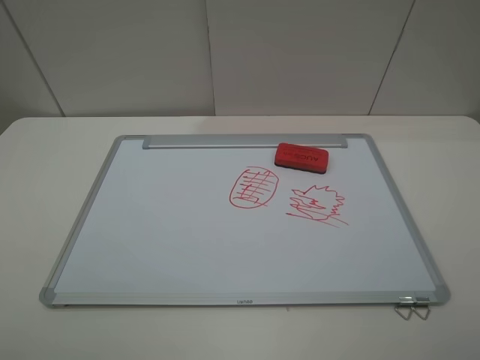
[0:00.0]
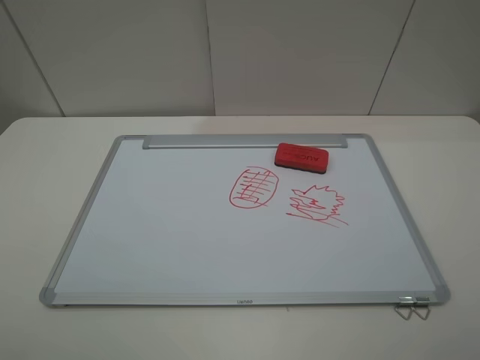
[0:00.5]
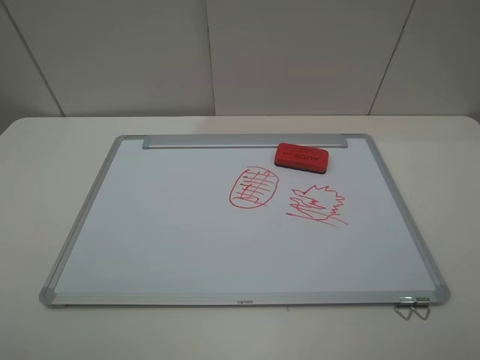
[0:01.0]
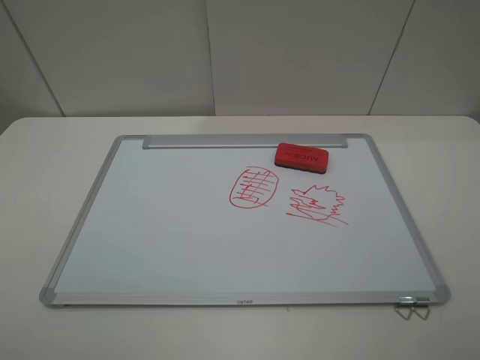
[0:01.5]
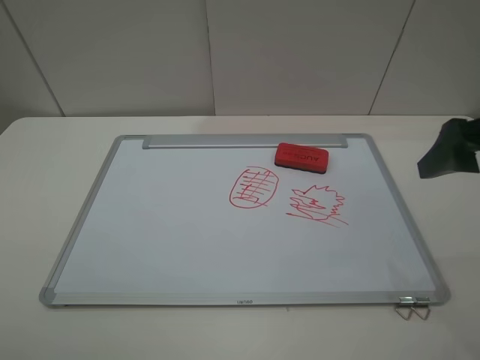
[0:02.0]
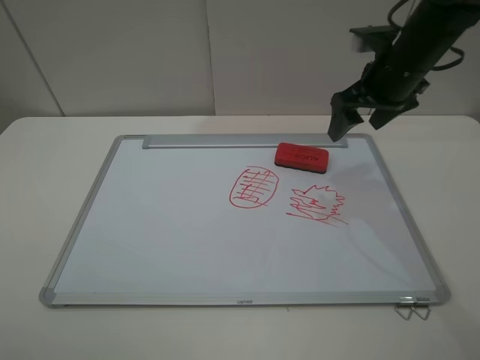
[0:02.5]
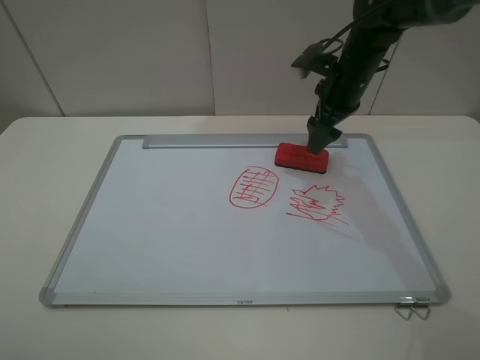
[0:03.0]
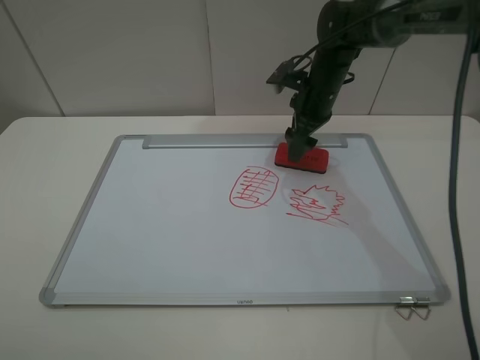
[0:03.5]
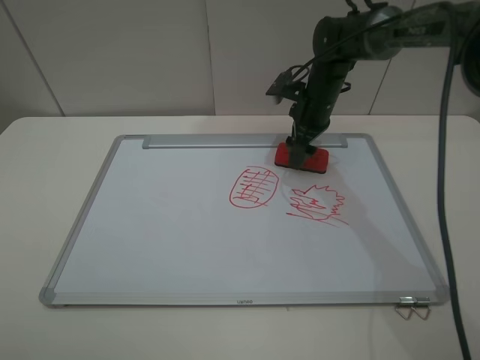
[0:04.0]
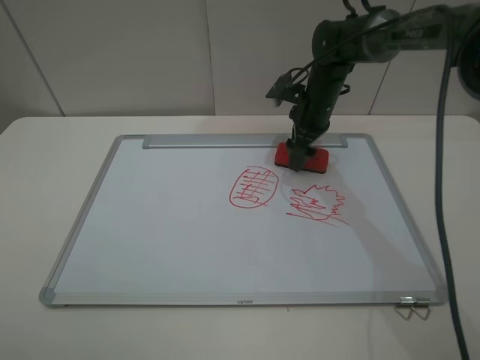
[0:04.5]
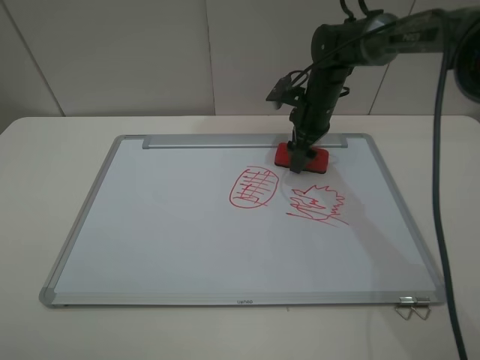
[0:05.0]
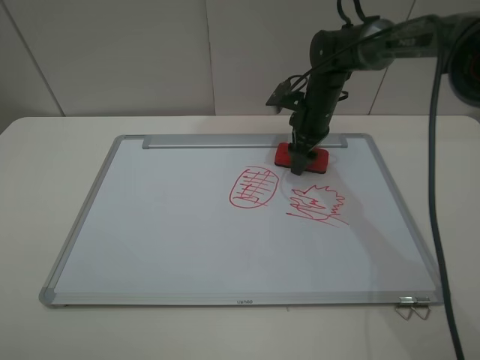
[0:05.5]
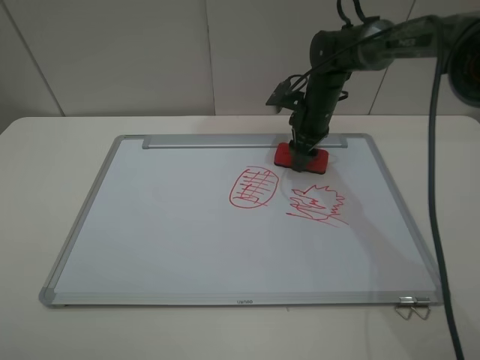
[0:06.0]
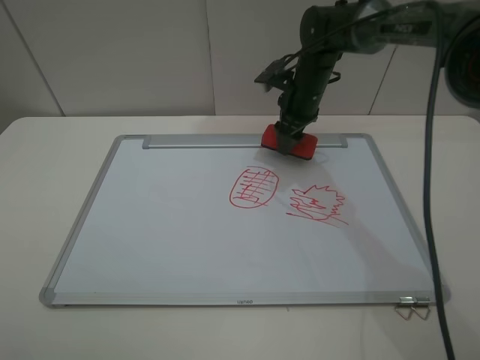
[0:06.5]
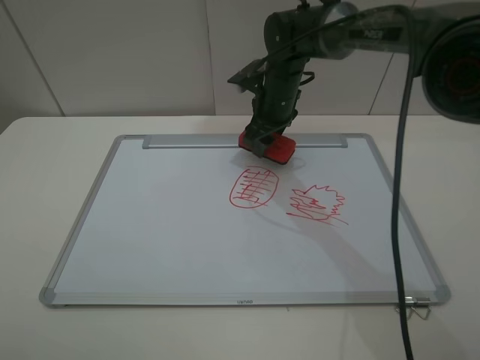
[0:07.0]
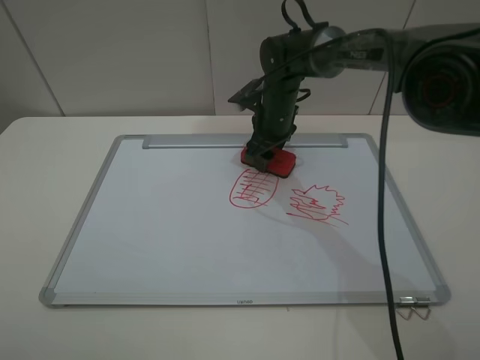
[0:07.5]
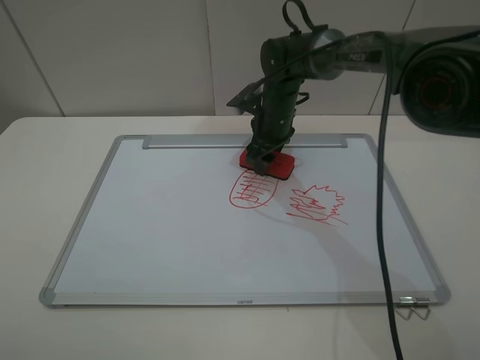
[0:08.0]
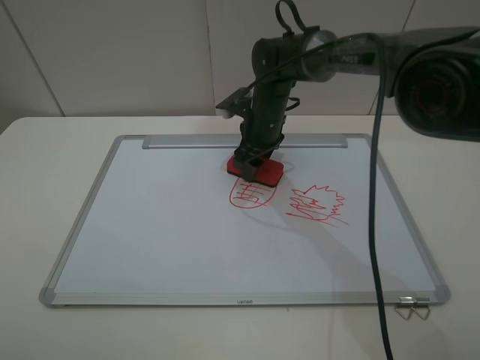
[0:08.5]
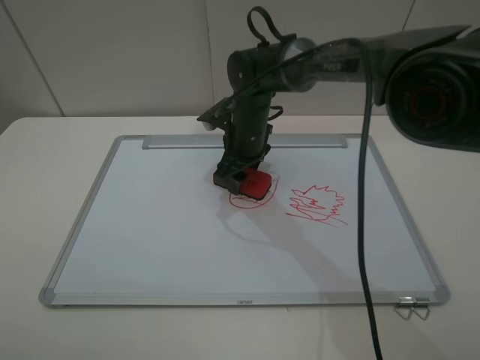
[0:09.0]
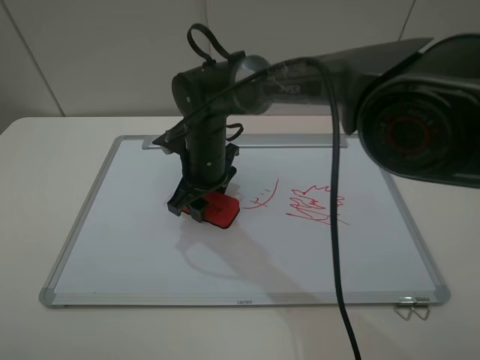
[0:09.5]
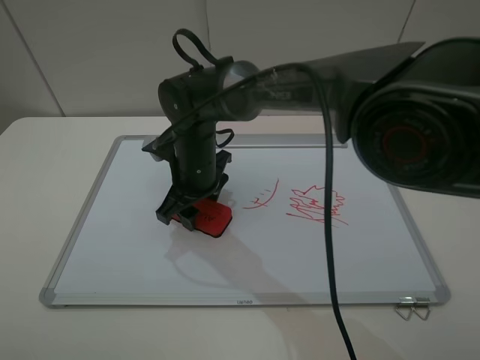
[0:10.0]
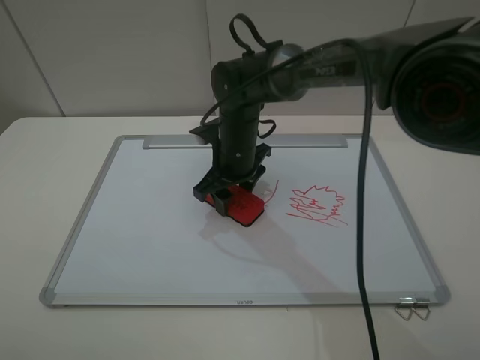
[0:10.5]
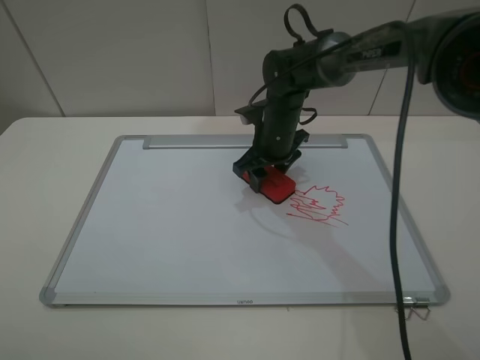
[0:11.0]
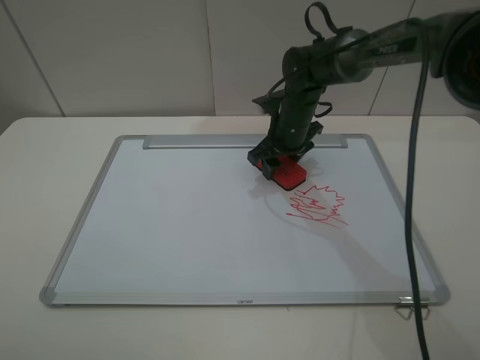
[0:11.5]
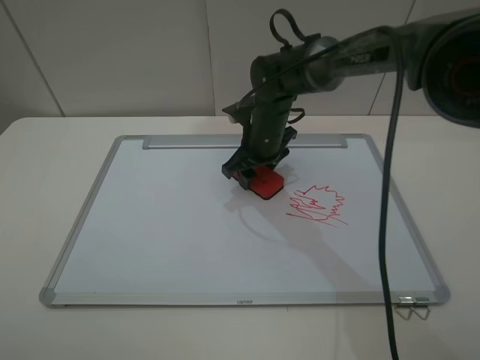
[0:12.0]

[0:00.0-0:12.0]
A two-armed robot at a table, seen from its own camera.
Step, 0:00.0 to 0:05.5: Grasp the eraser with the right gripper.
0:00.0 to 0:02.0: The right gripper moves forward, about 20 cm.
0:02.0 to 0:04.0: The right gripper travels forward, downward and to the left by about 30 cm.
0:04.0 to 0:06.0: The right gripper closes up.
0:06.0 to 0:08.0: The right gripper goes approximately 10 cm to the left.
0:08.0 to 0:10.0: The right gripper travels to the left and backward by some 15 cm.
0:10.0 to 0:12.0: The right gripper shifts about 10 cm to the right and forward.

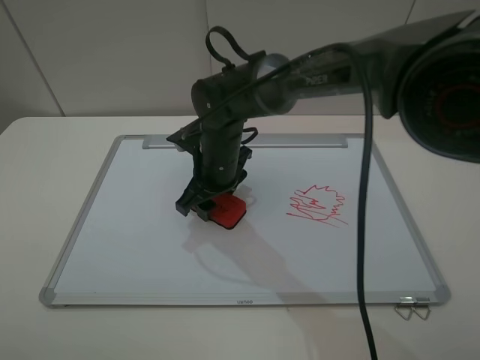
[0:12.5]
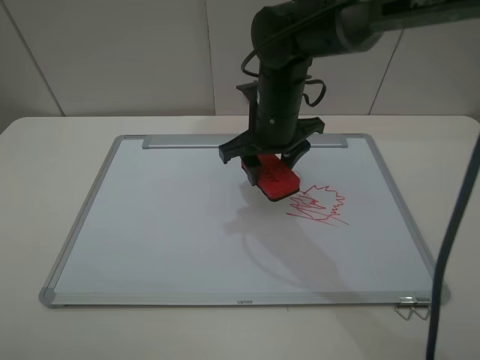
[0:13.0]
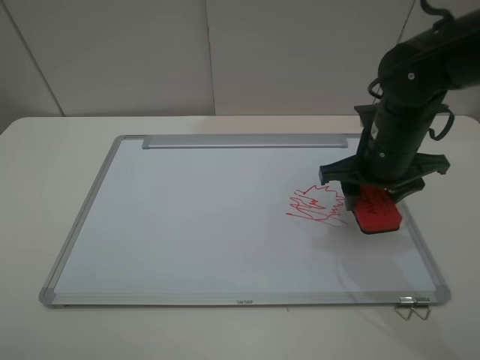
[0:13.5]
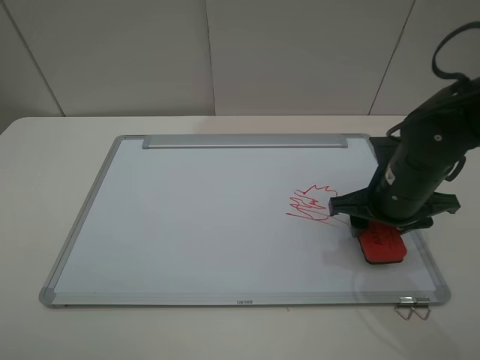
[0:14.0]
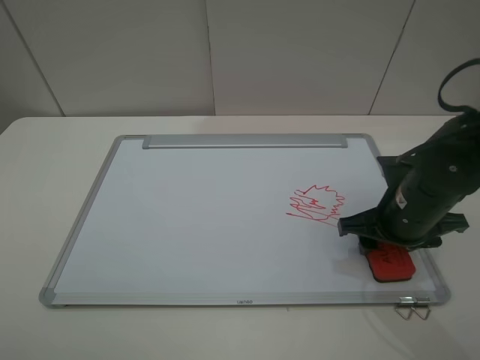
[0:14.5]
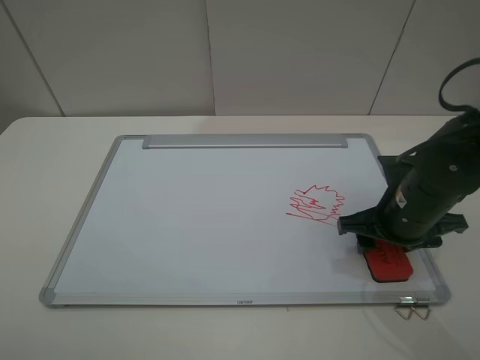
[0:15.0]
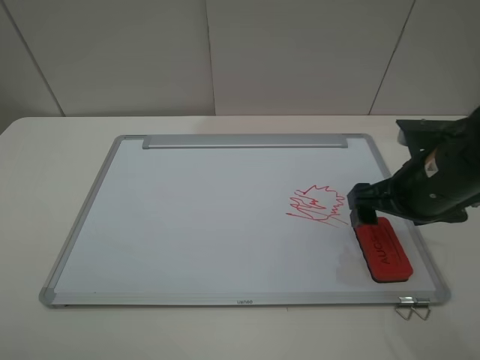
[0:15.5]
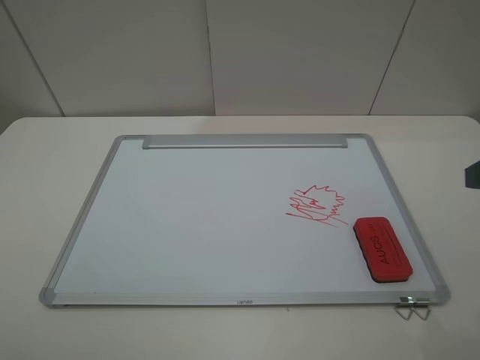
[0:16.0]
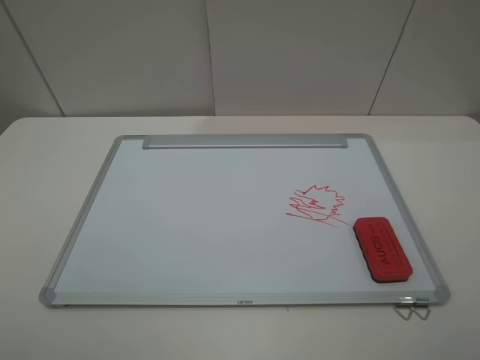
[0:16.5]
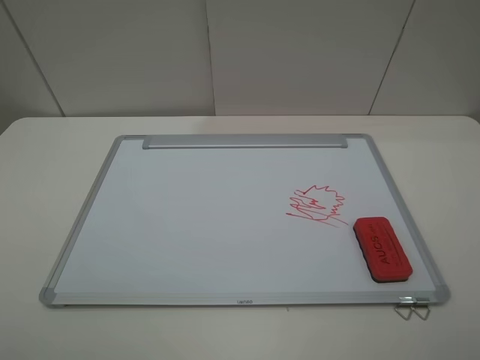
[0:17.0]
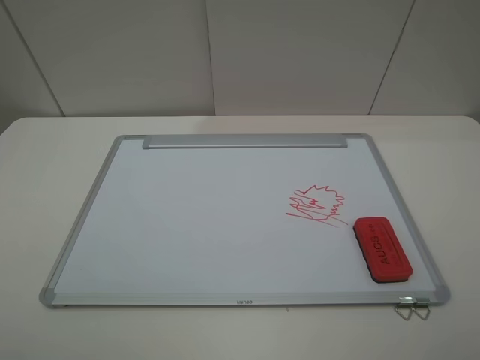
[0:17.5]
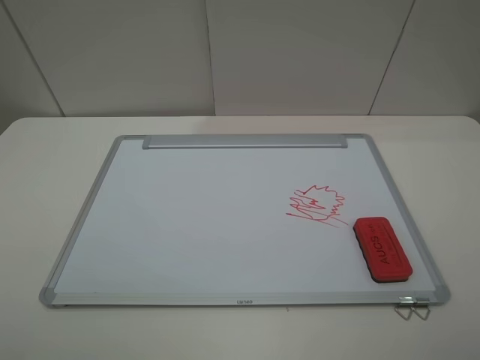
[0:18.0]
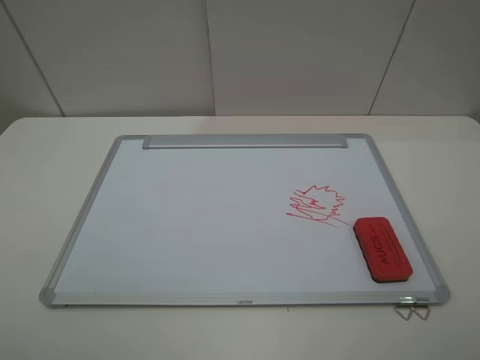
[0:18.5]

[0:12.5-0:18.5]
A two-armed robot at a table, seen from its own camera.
Step, 0:13.0 to 0:15.0: Place the eraser with the right gripper.
0:12.5 to 0:14.5: The right gripper heads to the right and backward, covering roughly 25 cm.
0:14.5 to 0:16.5: The right gripper heads backward and upward, covering roughly 30 cm, and opens its fingers.

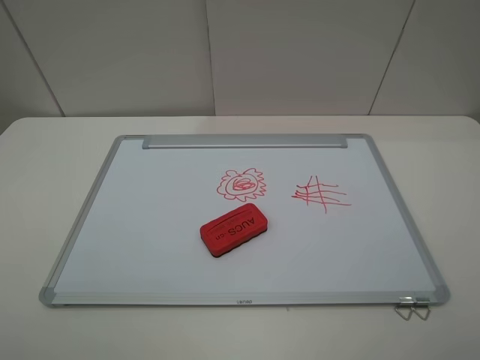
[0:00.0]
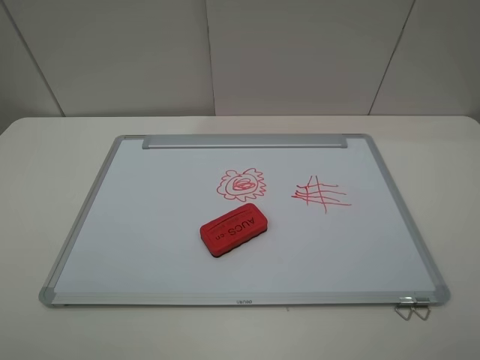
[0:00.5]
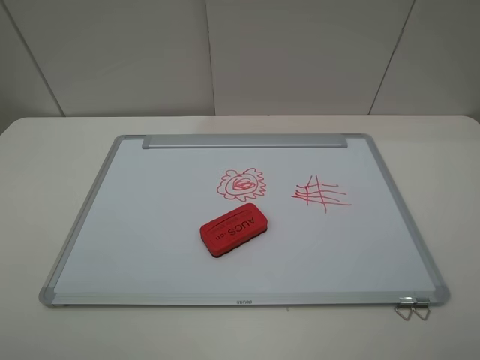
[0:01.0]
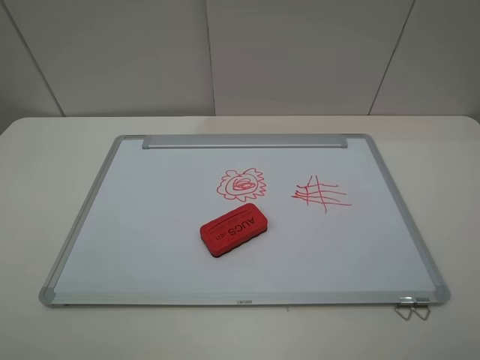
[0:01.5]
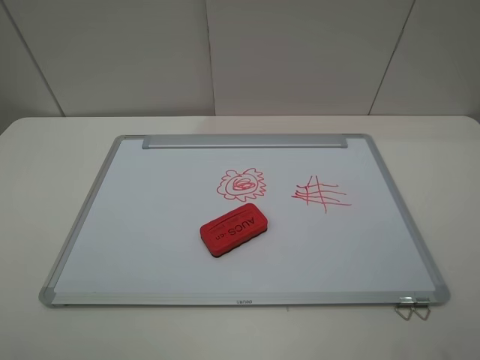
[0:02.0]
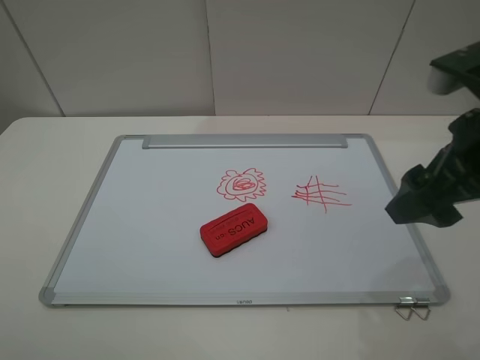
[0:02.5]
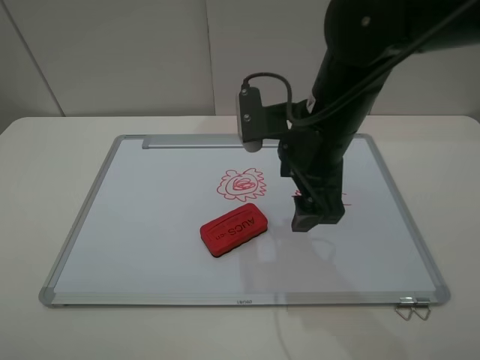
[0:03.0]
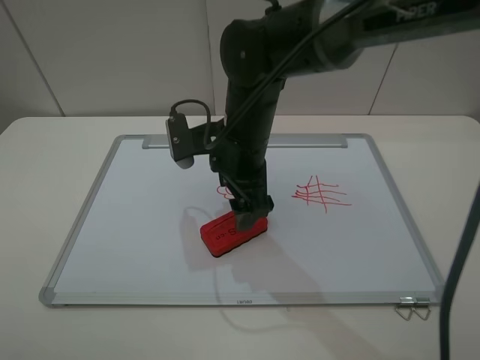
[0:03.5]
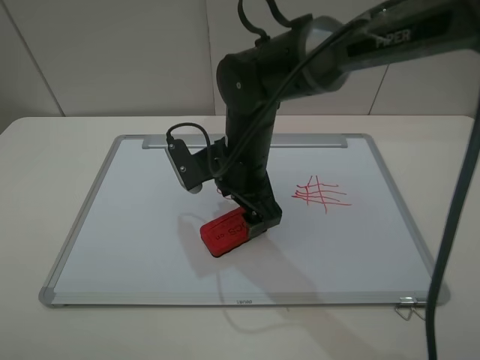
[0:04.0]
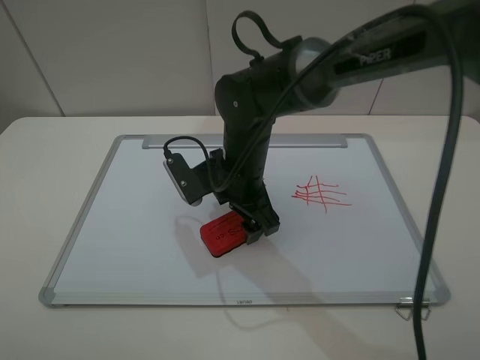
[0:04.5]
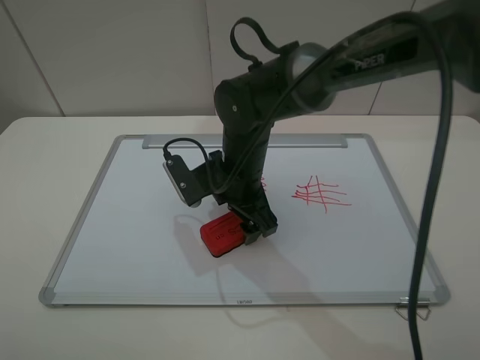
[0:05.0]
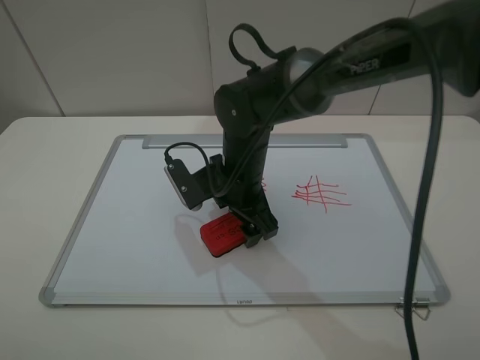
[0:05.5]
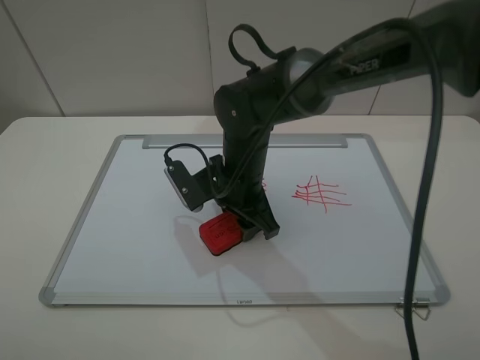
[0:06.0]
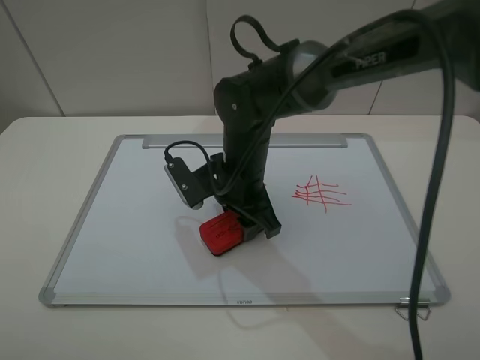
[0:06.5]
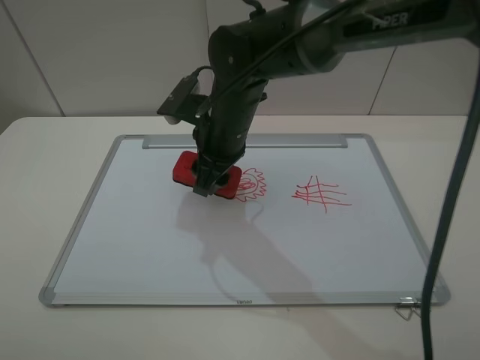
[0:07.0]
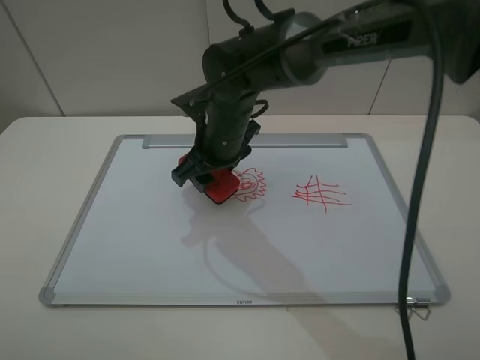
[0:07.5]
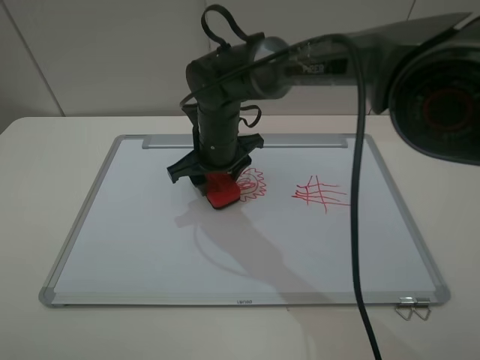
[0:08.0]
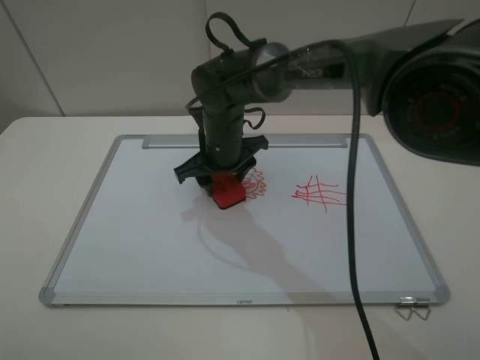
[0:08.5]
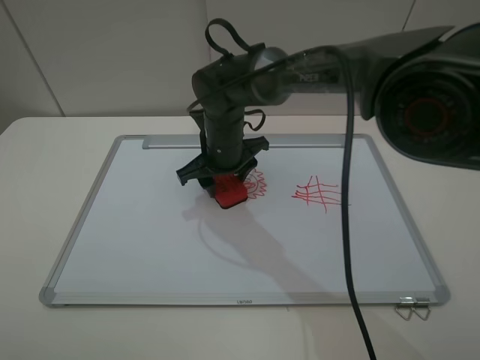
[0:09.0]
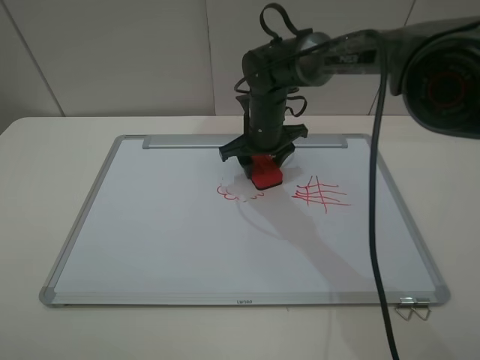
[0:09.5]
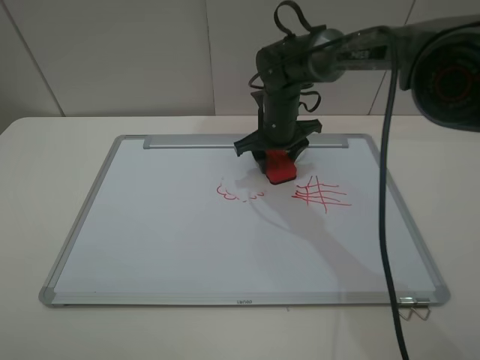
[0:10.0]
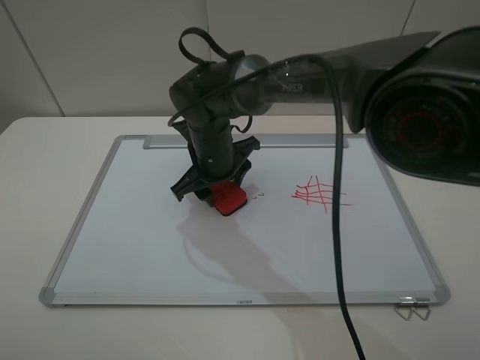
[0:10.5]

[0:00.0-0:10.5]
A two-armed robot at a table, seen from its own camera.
Step, 0:00.0 to 0:05.5: Grasp the eraser with the right gripper.
0:02.0 to 0:04.0: The right gripper travels to the left, forward and downward by some 40 cm.
0:04.0 to 0:06.5: The right gripper closes up.
0:06.5 to 0:08.5: The right gripper shifts some 5 cm forward.
0:08.5 to 0:10.5: The right gripper moves some 10 cm to the right and comes back.
